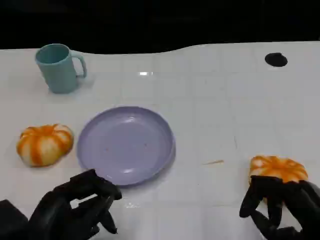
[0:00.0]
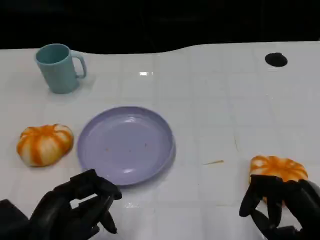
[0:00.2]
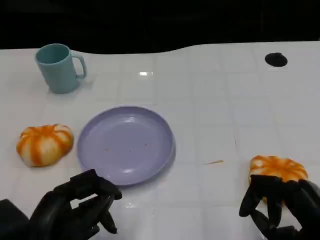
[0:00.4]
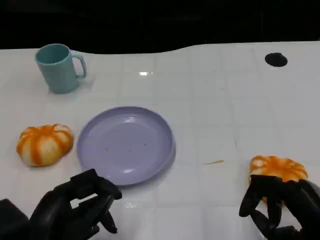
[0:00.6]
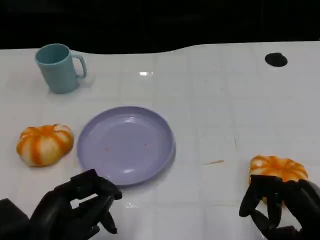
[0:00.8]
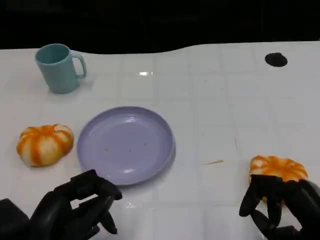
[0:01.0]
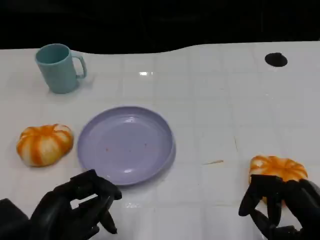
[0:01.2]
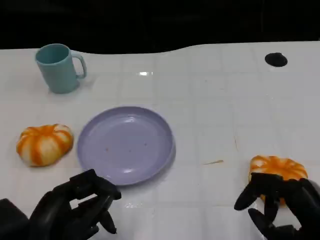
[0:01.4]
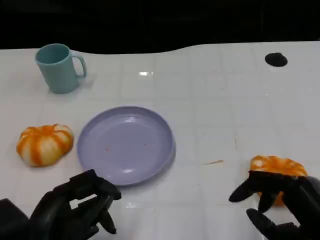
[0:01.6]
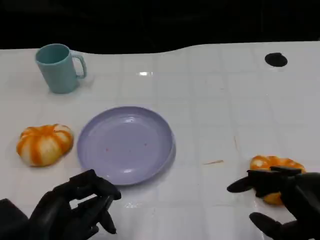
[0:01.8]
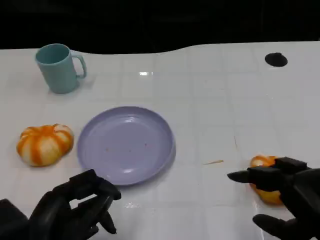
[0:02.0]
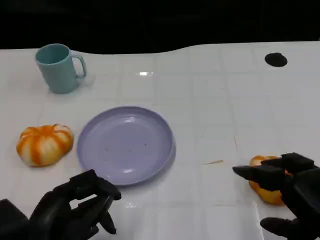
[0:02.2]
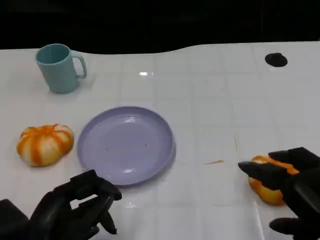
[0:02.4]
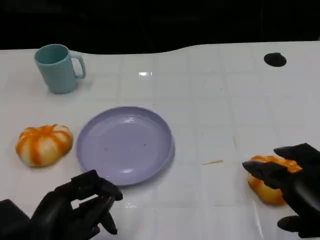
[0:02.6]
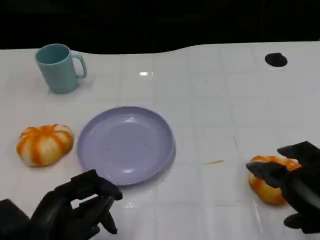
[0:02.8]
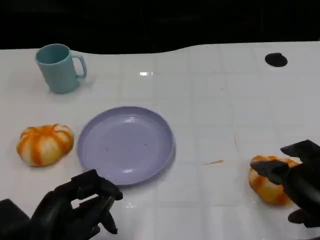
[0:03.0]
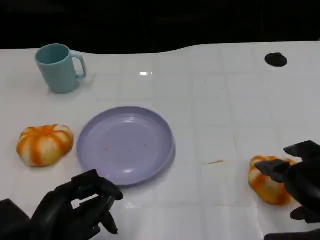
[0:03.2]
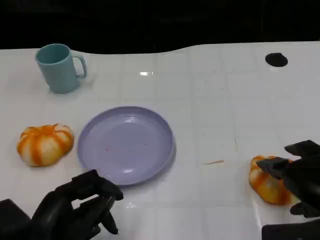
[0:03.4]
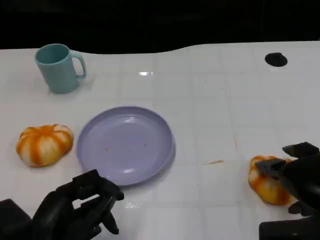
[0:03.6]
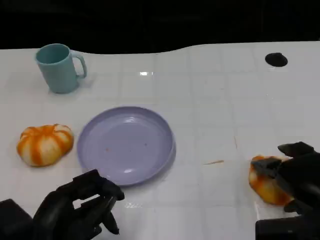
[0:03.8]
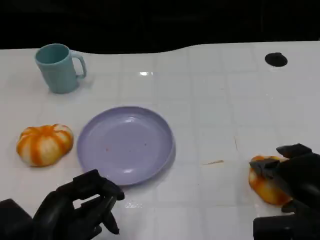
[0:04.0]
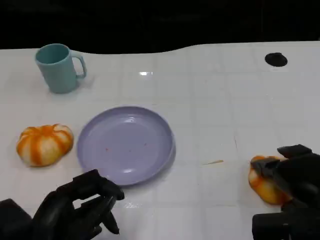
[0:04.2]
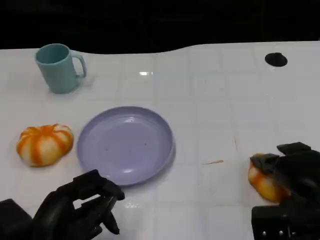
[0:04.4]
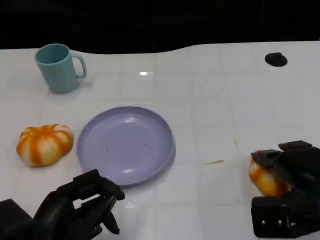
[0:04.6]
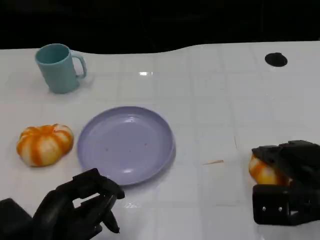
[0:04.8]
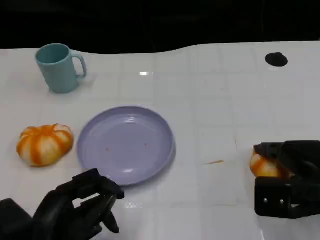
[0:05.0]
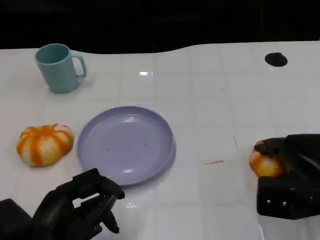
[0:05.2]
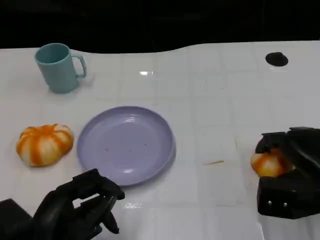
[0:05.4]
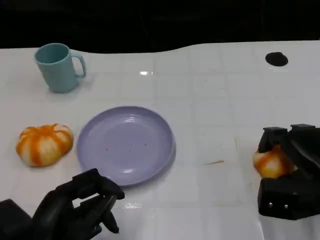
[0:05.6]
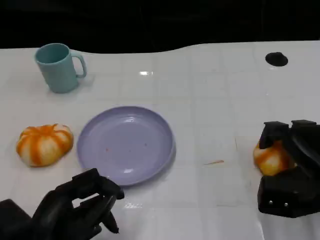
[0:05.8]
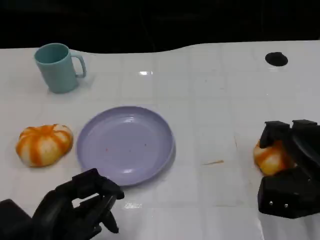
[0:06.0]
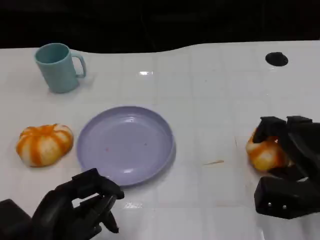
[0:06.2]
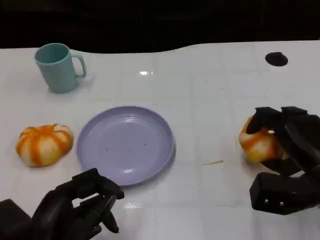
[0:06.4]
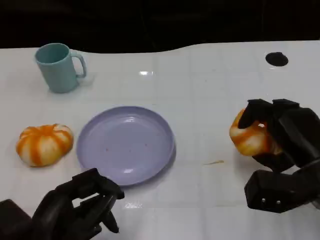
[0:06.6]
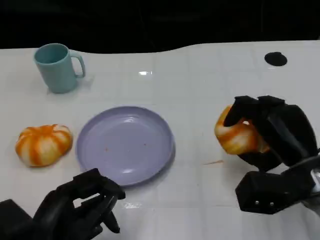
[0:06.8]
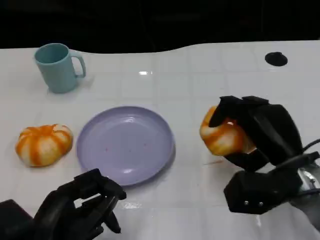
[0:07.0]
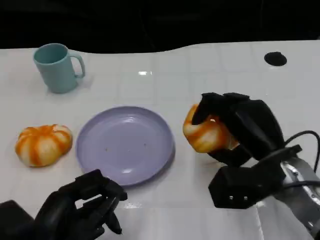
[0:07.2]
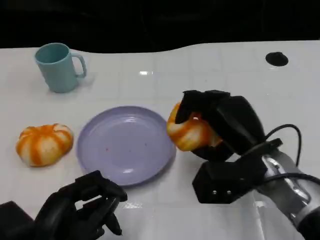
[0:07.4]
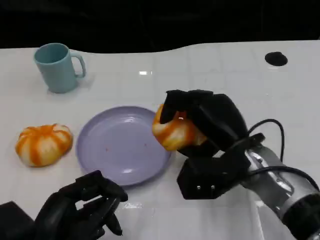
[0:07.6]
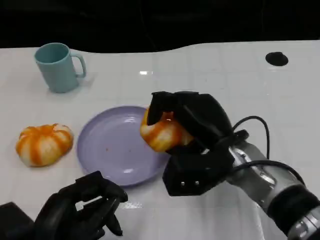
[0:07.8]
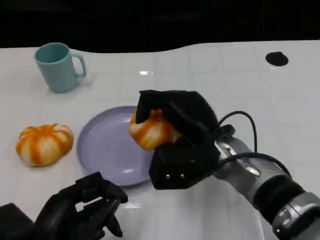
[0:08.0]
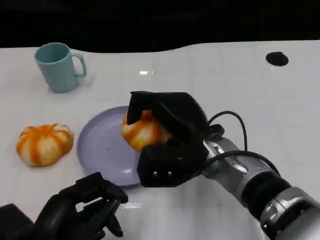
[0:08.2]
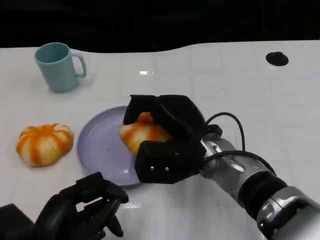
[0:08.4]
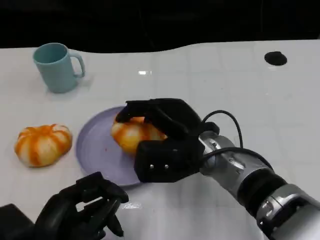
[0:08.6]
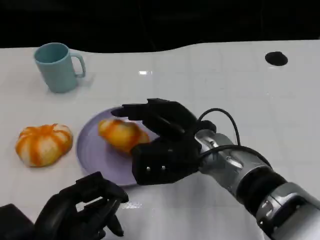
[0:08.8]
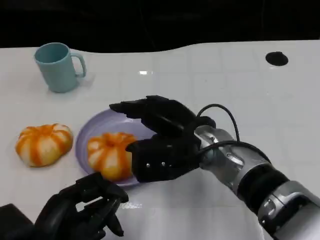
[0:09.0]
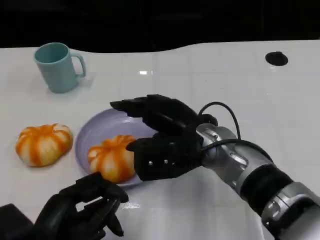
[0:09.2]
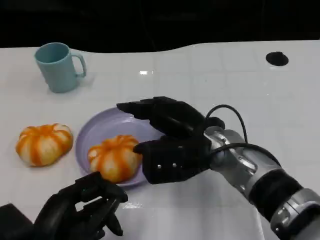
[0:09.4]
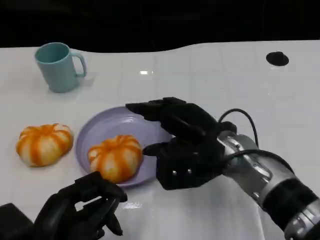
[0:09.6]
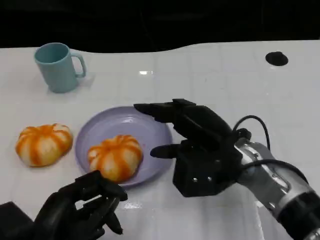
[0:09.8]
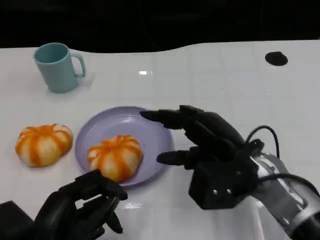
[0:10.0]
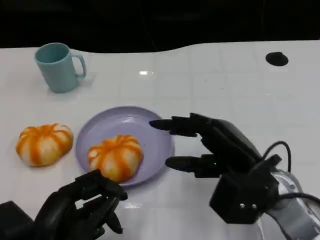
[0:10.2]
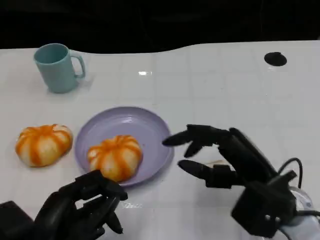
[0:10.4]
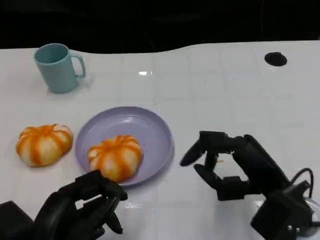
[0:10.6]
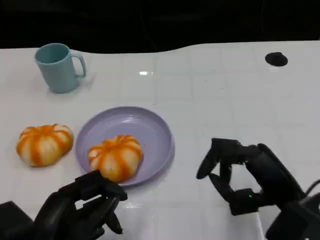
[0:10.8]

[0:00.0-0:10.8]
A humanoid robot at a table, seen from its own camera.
Task of the whole recording: Grasp the bread from the table and place it into the plate.
0:00.0 to 0:01.6: The hands make only small movements.
0:03.0 to 0:04.6: The right hand heads forward, covering about 5 cm.
0:06.2 to 0:07.8: The right hand is displaced to the left by some 15 cm.
0:09.2 to 0:10.8: The right hand moves to the right and backward, approximately 15 cm.

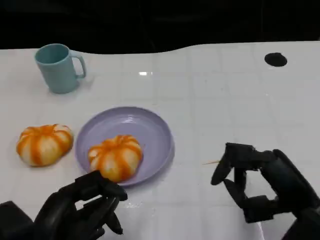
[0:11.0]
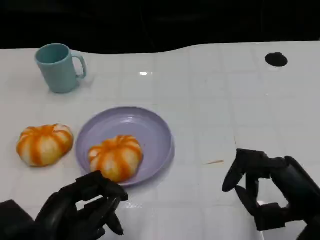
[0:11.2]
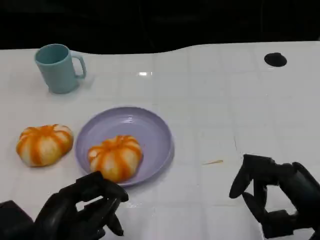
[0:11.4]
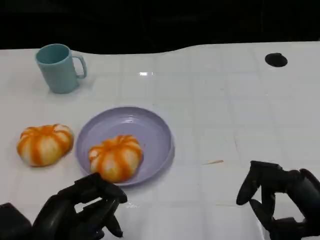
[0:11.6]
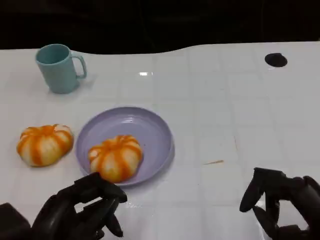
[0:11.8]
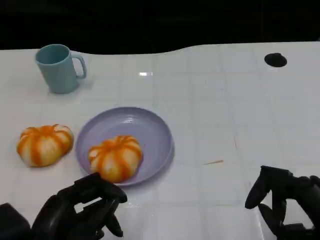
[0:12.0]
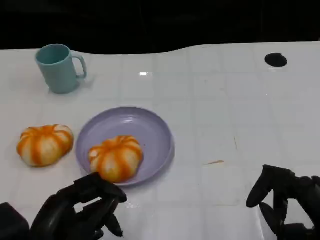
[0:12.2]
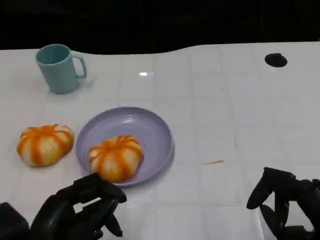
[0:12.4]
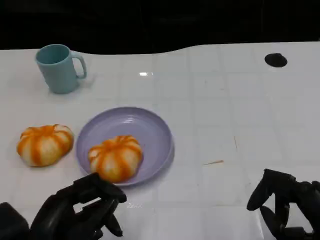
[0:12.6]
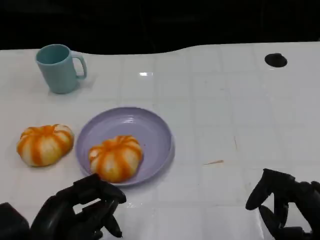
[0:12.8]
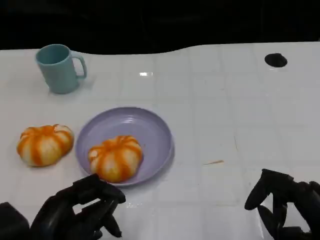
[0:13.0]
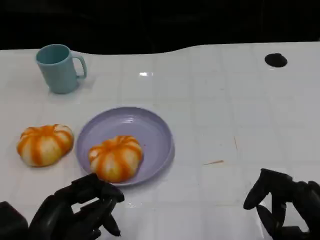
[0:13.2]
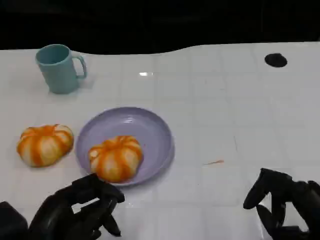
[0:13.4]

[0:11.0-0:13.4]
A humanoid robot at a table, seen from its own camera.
Task of the whole recording: Grasp the bread from the table and place it into the plate.
0:11.0 to 0:12.2: The right hand shifts by approximately 5 cm.
0:12.2 to 0:13.4: Both hands stay about where they are.
